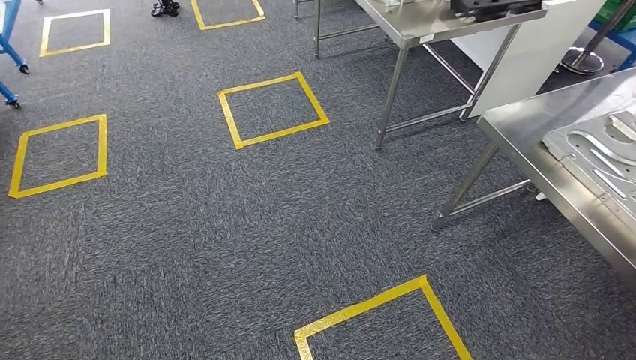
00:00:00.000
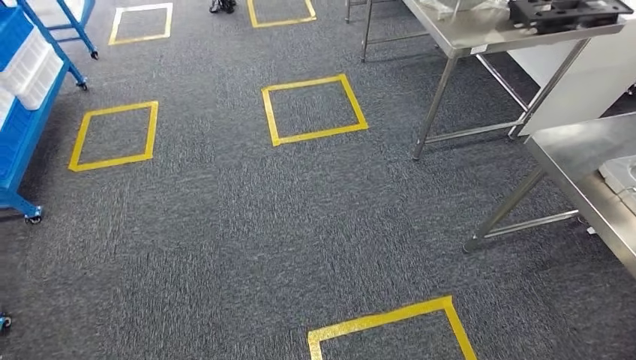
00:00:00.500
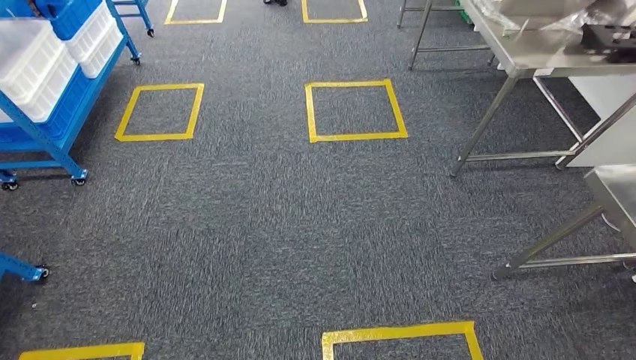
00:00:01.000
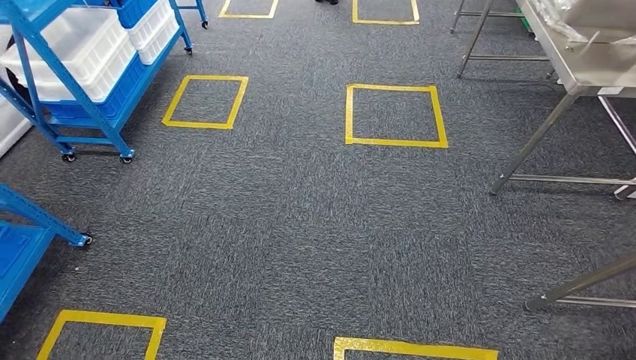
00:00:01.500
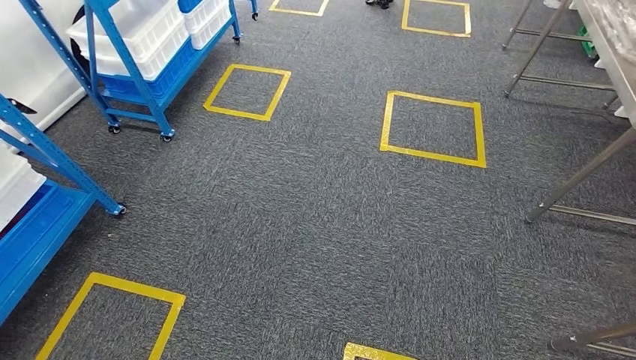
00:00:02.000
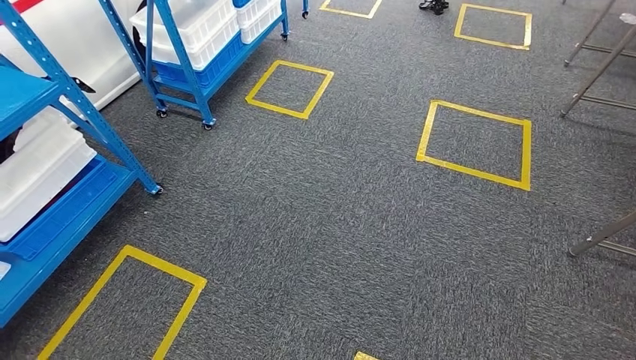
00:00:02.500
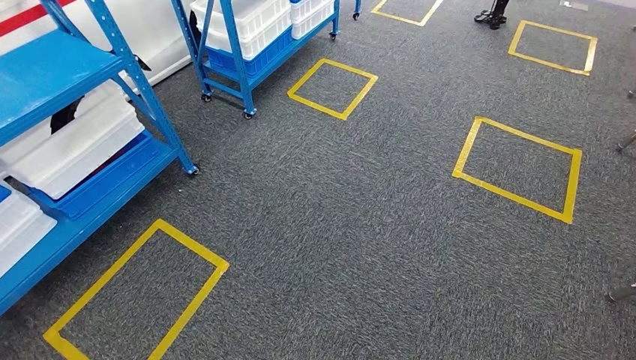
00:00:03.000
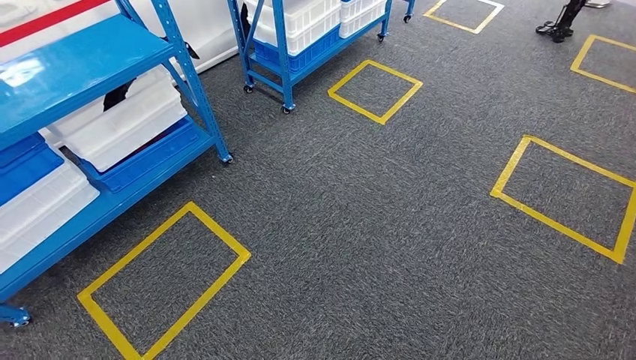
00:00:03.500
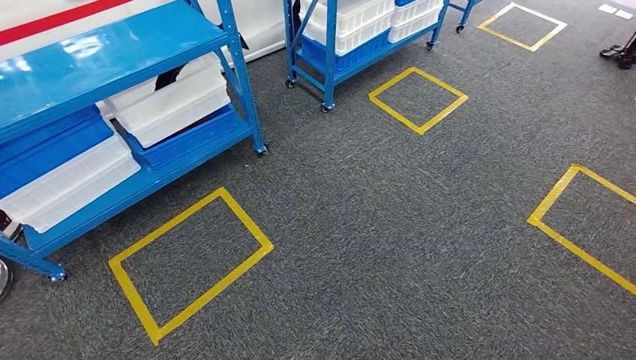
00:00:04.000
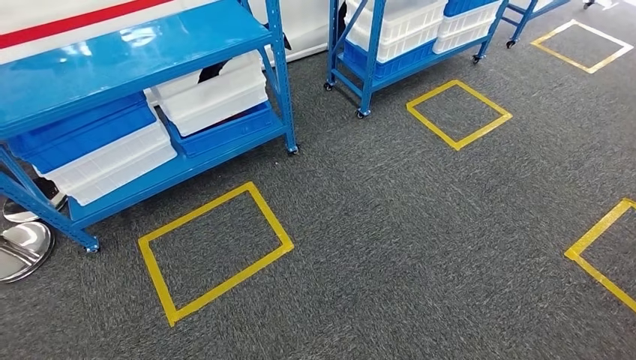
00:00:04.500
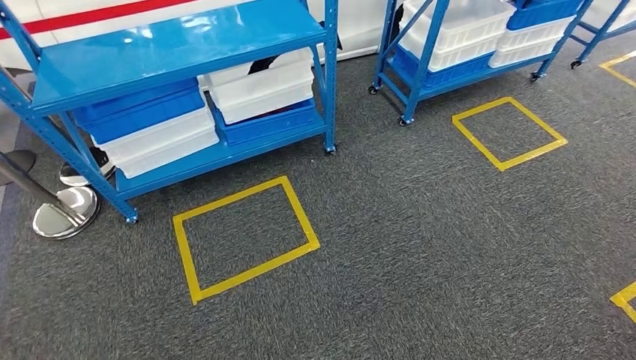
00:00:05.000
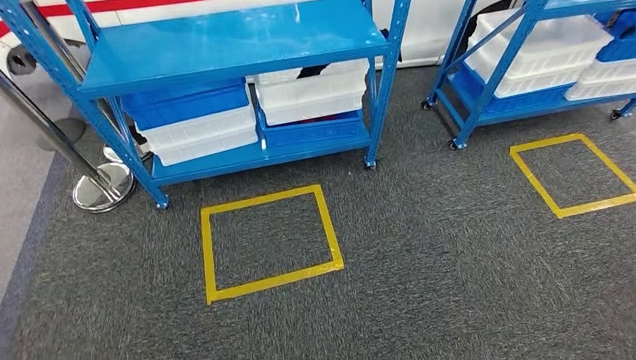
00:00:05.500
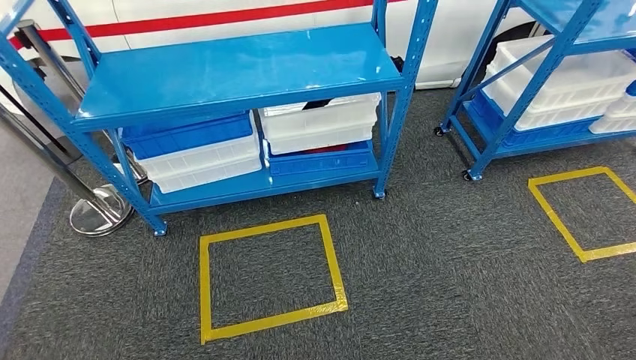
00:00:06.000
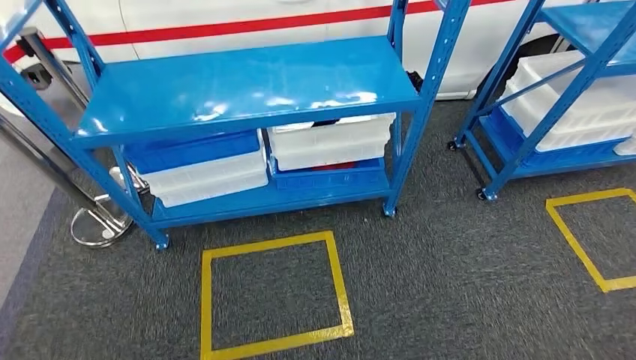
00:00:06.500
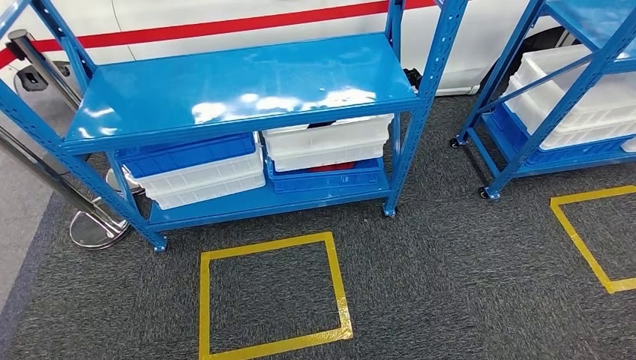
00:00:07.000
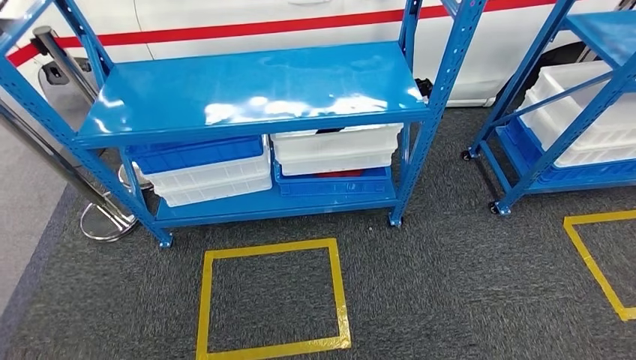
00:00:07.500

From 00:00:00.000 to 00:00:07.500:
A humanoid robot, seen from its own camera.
Step, from 00:00:00.000 to 00:00:07.500: Move to the initial position of the shelf.
